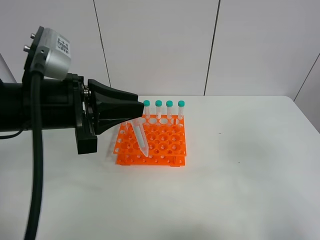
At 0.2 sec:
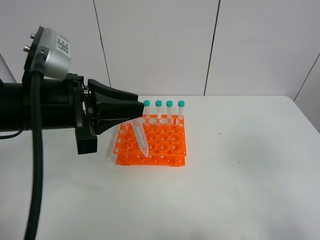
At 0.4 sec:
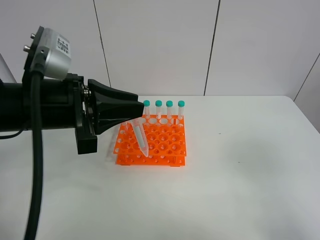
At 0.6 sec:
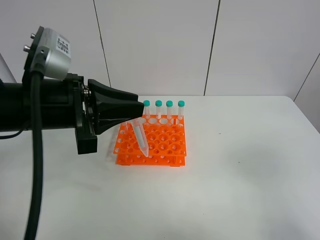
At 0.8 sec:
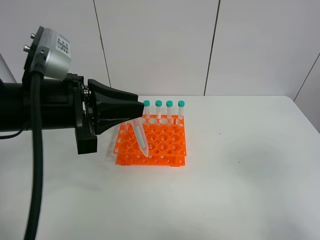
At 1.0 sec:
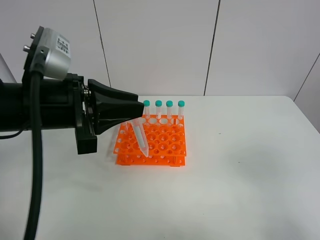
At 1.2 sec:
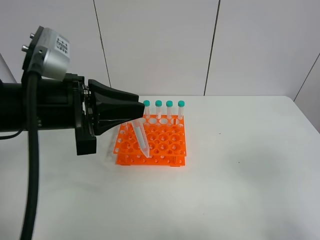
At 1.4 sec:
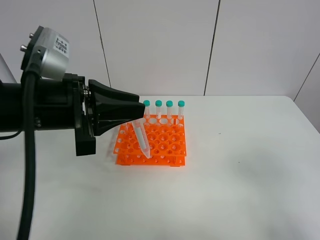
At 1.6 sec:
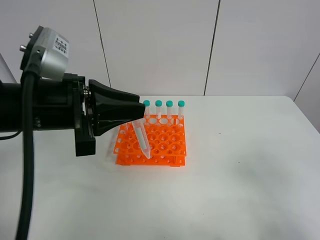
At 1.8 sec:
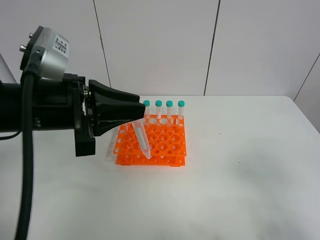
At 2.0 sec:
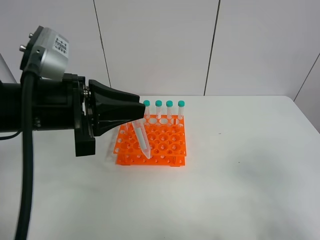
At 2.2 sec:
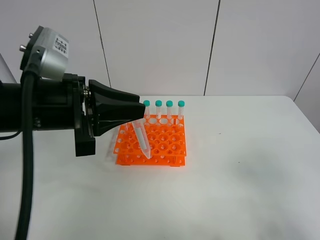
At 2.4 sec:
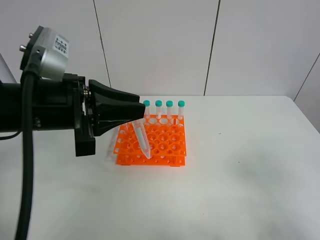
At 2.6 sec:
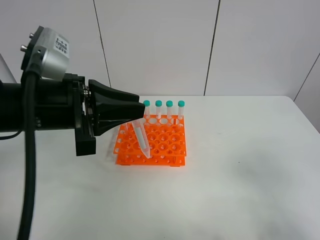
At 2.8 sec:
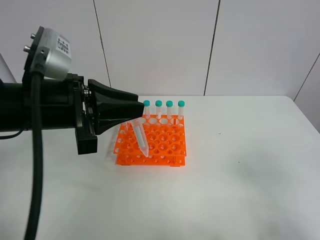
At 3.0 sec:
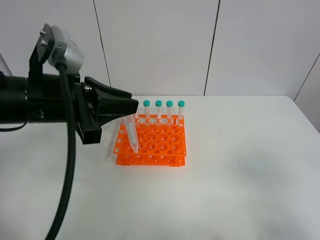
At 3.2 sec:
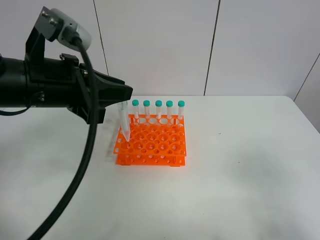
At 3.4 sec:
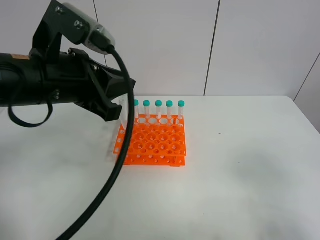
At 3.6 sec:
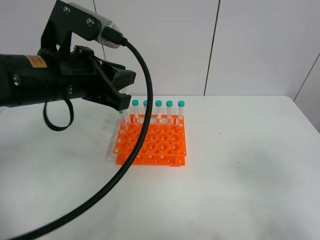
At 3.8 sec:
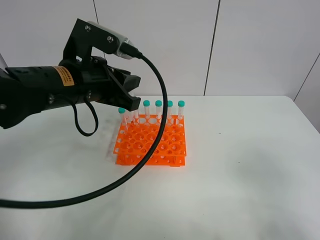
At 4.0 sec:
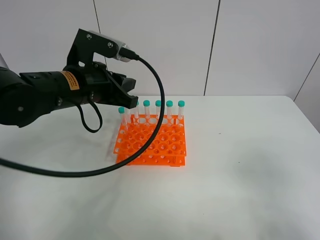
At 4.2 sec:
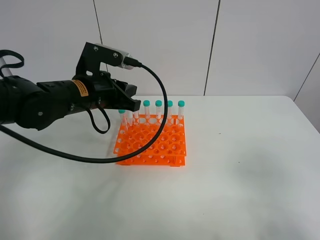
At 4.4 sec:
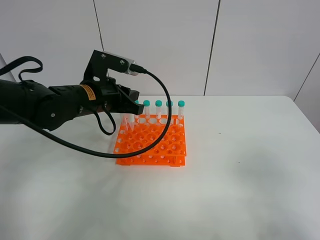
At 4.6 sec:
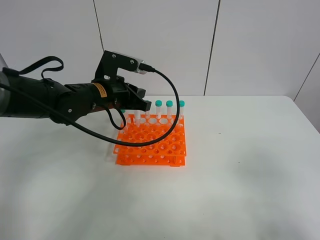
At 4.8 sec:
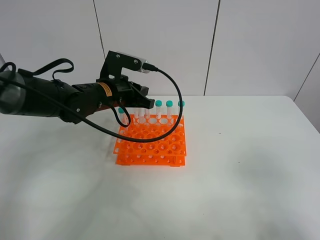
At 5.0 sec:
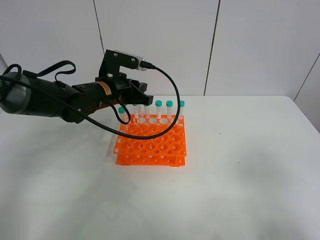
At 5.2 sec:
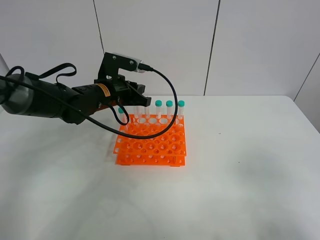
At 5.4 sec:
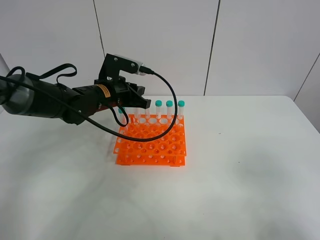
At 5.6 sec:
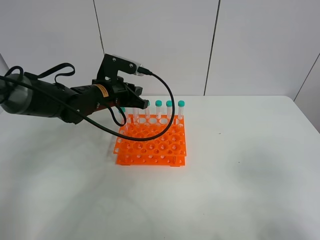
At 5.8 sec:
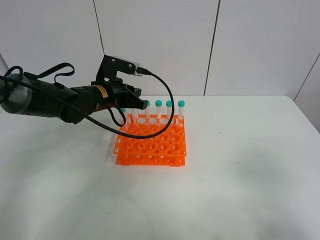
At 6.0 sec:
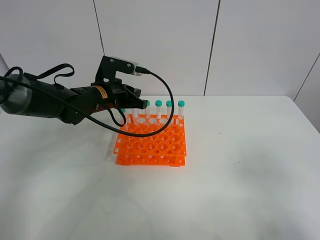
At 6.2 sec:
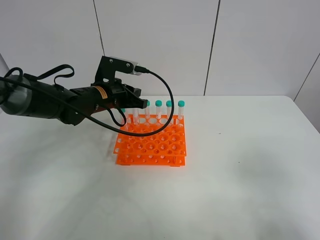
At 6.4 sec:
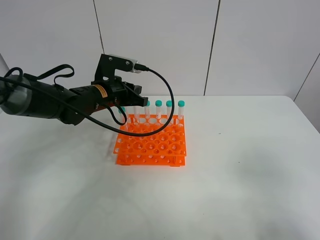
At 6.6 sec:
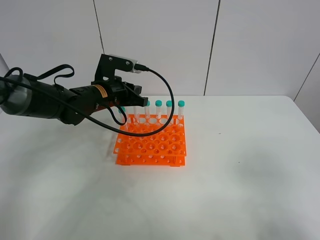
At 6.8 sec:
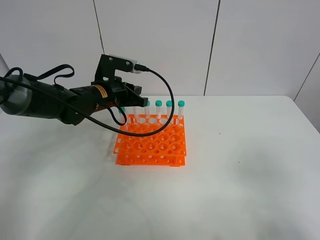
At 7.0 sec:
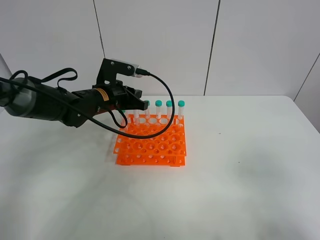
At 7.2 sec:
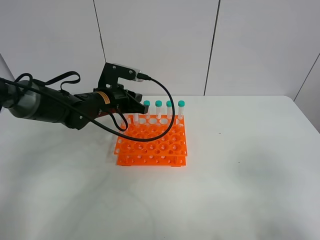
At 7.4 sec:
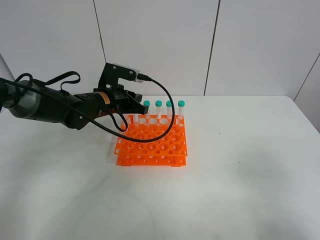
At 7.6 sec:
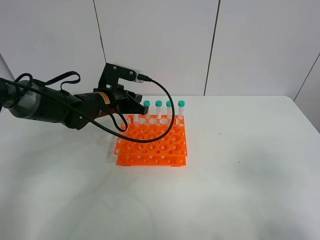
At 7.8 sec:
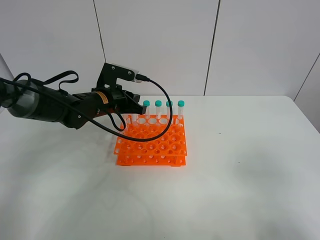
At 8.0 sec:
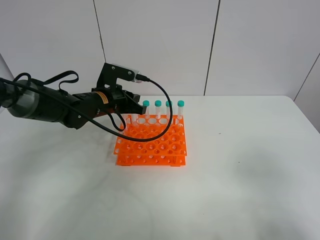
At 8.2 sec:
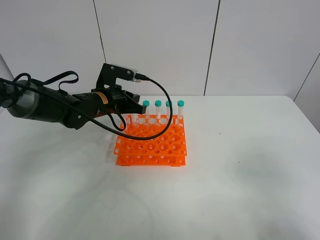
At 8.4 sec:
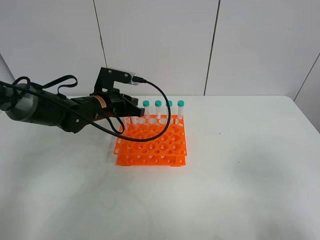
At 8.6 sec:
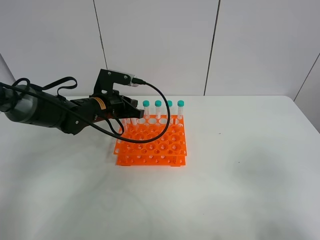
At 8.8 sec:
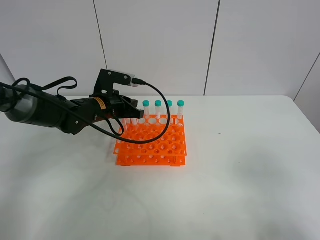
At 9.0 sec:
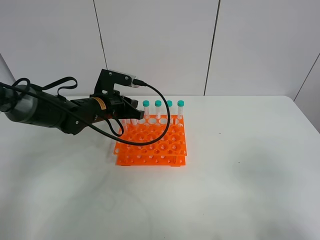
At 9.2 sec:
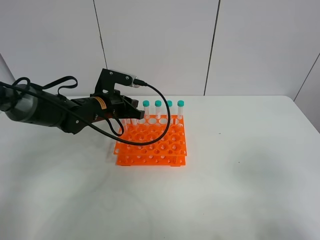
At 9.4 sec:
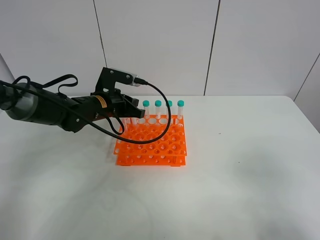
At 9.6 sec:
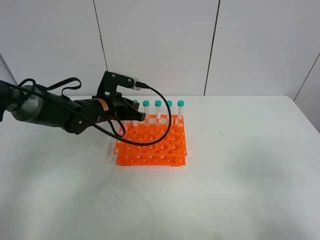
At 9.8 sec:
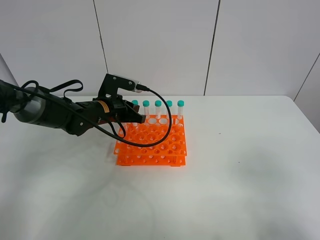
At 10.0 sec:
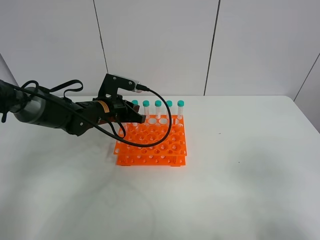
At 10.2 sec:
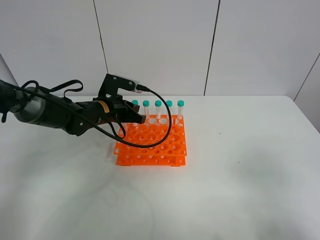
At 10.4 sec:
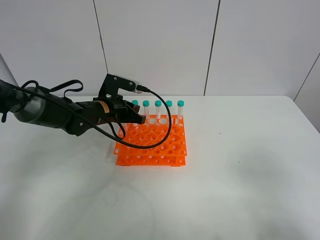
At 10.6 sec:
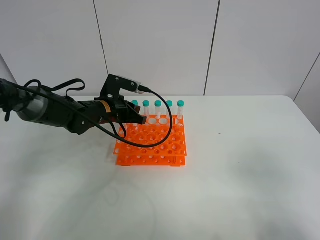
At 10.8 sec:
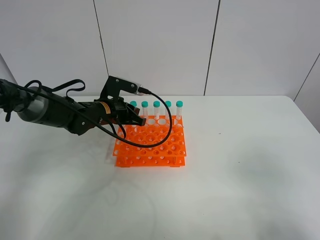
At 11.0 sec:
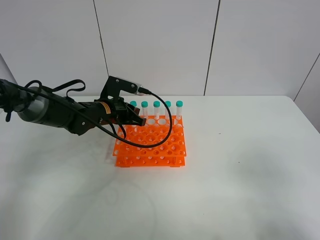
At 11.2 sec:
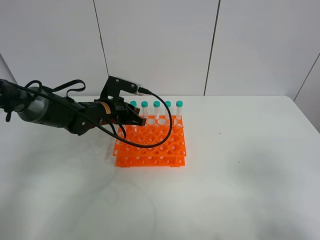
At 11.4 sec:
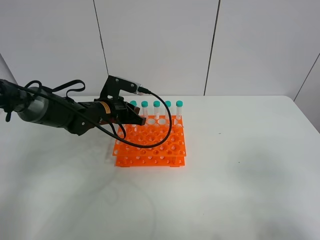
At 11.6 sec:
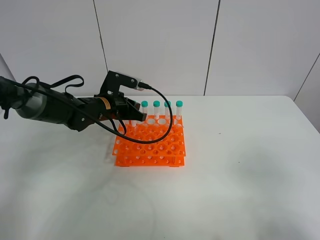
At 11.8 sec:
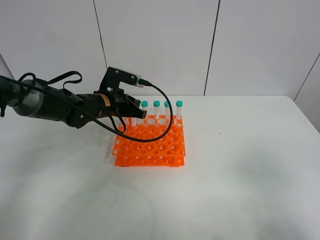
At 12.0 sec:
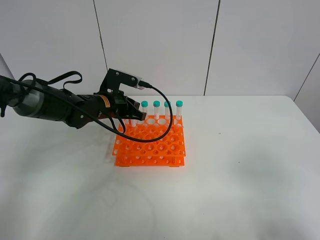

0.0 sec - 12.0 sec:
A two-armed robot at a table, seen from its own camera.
Task of the whole recording: Put the test tube on the table back onto the test tube rack.
1.6 sec - 3.0 sec: The grippers move only a little.
3.0 sec - 4.4 sec: The left gripper is displaced forward and downward by some 15 cm.
4.4 sec - 6.0 sec: The left gripper heads forward, covering some 5 cm.
6.0 sec - 12.0 sec: The grippers stay close to where they were, moving slightly.

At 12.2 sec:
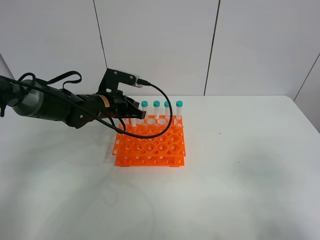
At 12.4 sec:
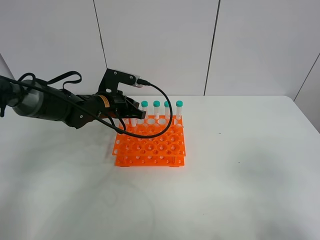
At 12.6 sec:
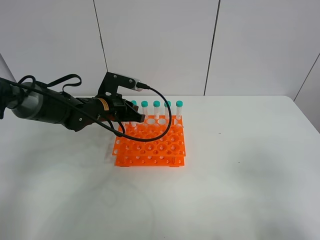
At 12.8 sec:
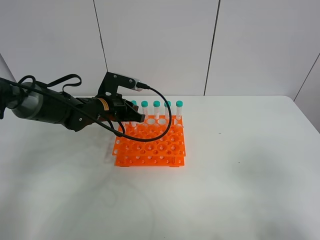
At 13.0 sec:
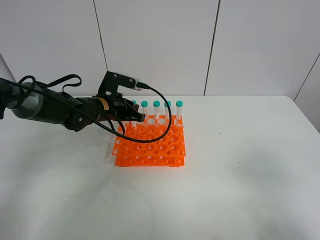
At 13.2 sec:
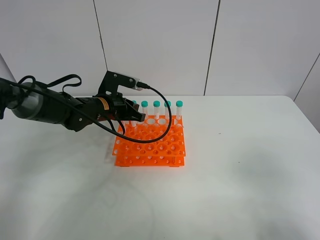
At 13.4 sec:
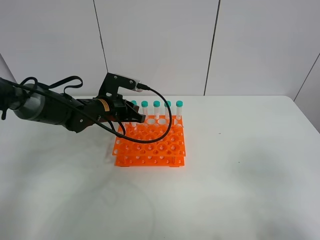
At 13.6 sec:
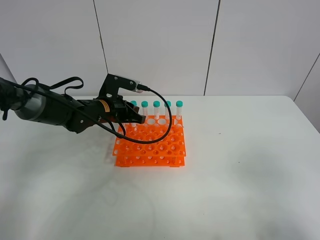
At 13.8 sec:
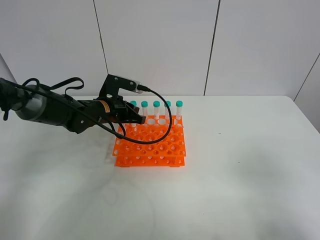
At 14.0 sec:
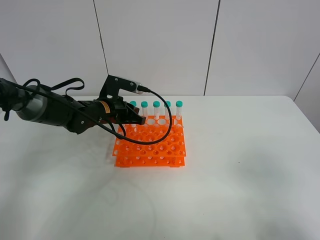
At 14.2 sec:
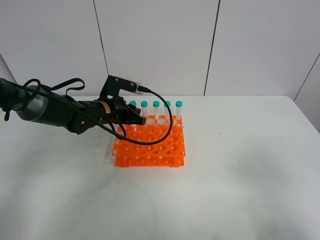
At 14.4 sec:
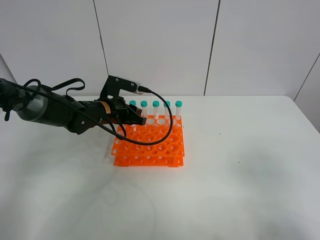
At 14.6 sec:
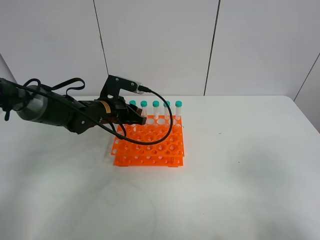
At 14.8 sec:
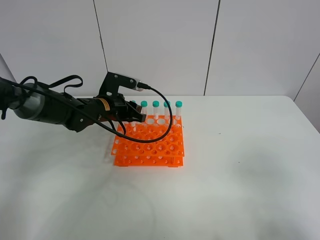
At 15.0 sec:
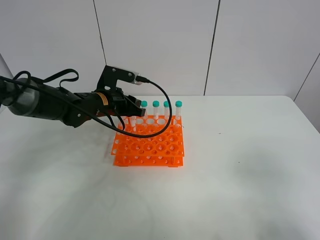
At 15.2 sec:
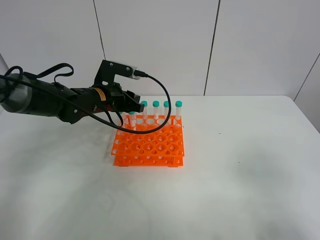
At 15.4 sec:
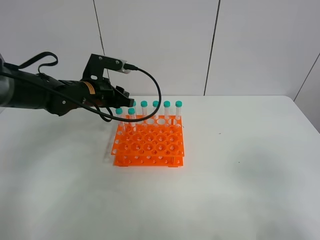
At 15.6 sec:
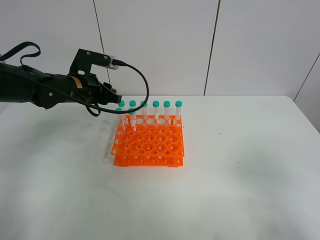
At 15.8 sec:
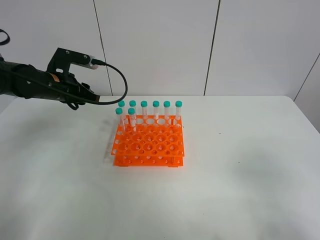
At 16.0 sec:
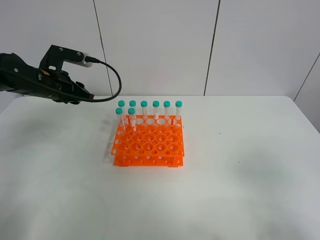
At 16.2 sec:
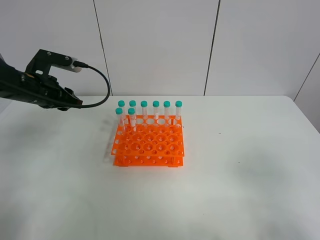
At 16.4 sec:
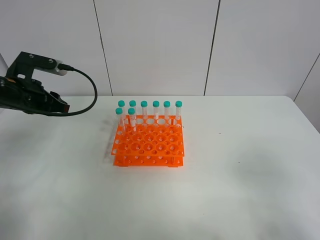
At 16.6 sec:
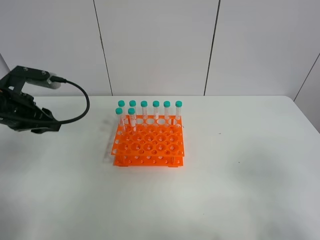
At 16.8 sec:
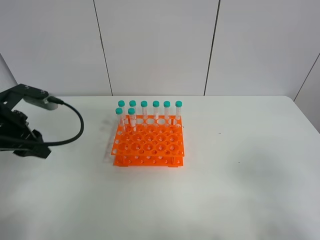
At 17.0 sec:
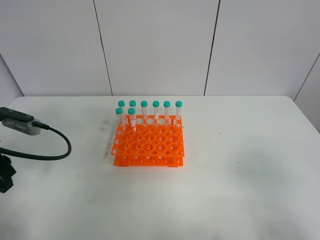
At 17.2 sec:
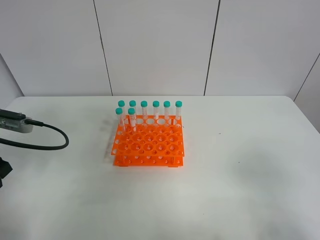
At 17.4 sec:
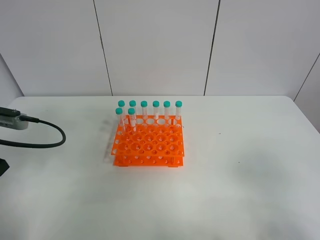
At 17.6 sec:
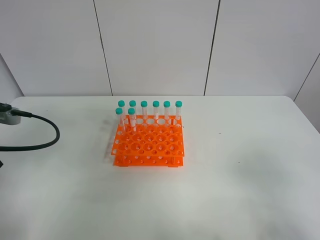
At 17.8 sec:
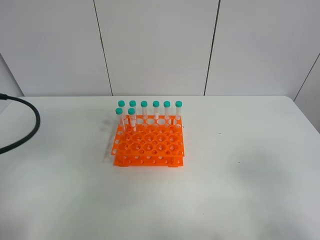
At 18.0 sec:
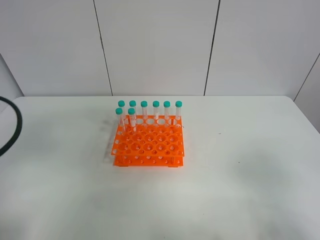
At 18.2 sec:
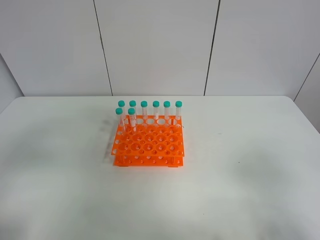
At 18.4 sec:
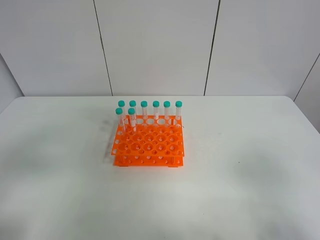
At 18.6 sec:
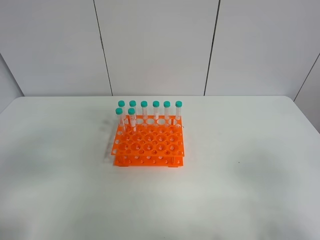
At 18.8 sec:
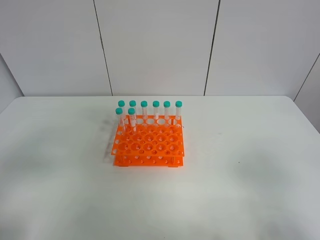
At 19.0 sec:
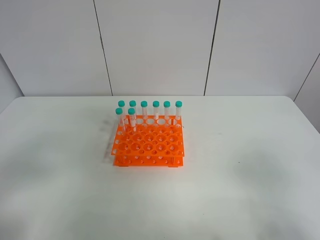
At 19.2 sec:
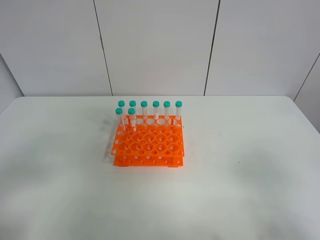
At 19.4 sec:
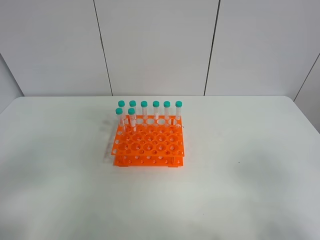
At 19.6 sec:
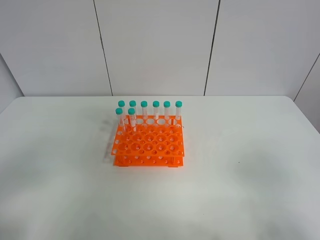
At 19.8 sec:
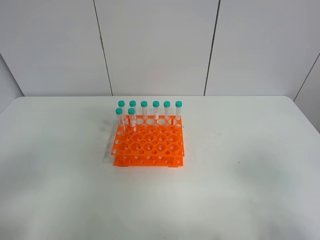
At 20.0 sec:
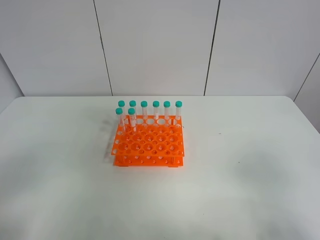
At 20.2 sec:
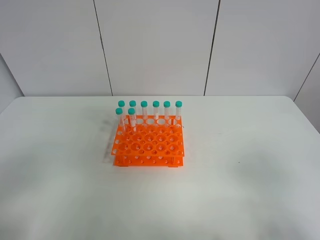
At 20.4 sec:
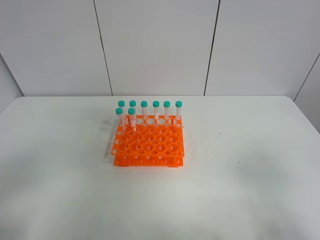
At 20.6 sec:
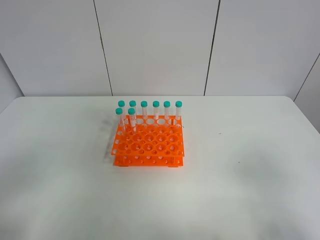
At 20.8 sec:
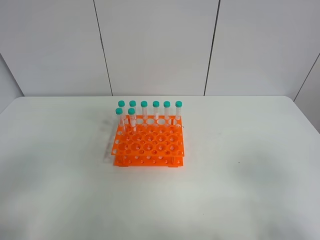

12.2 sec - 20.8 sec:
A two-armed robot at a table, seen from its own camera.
Task of the whole recording: Put the test tube on the table back onto the test tube rack.
Step, 12.2 sec - 14.8 sec: Place the test tube on the test tube rack with the left gripper.
12.2 sec - 13.6 sec: The two grippers keep their place.
13.6 sec - 15.0 sec: The grippers stay close to where they were, moving slightly.
15.0 sec - 16.6 sec: The left gripper is displaced to the left, backward and upward by approximately 20 cm.
16.6 sec - 18.0 sec: The left gripper moves backward and upward, roughly 15 cm.
18.0 sec - 19.4 sec: The left gripper is displaced backward by about 10 cm.
